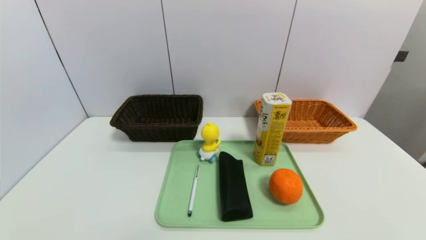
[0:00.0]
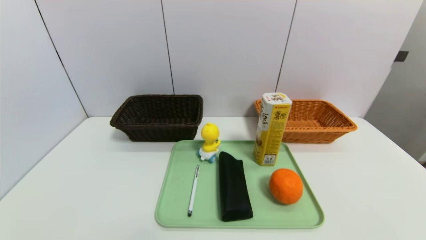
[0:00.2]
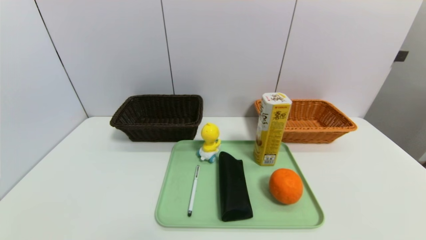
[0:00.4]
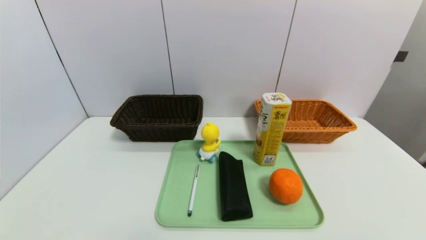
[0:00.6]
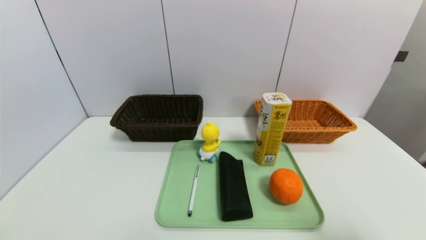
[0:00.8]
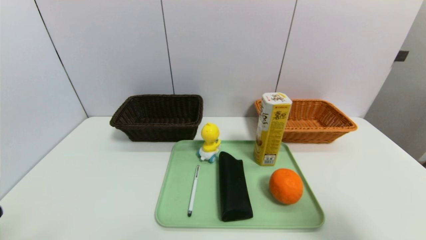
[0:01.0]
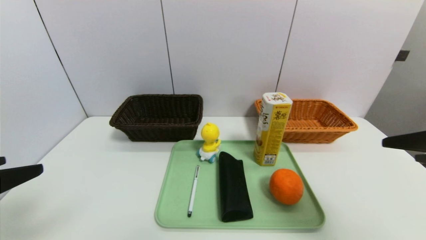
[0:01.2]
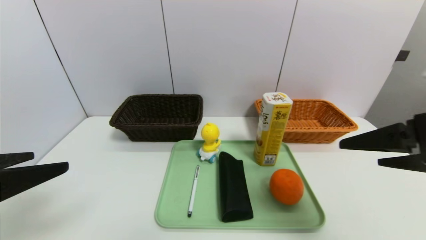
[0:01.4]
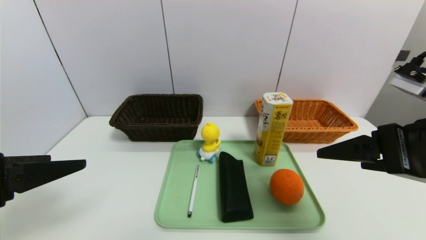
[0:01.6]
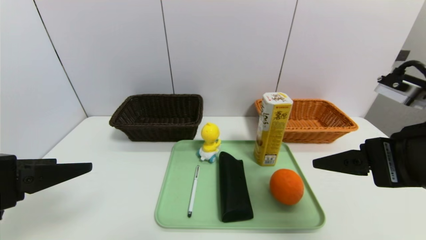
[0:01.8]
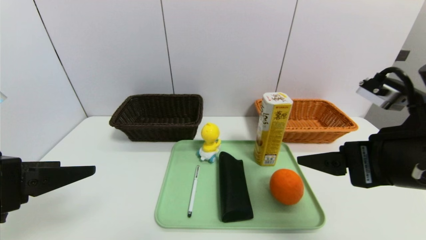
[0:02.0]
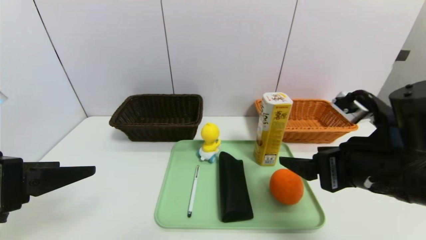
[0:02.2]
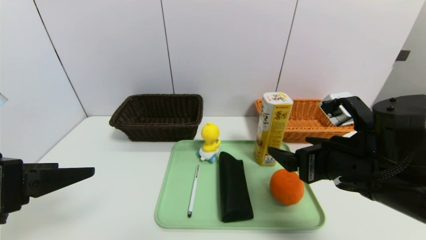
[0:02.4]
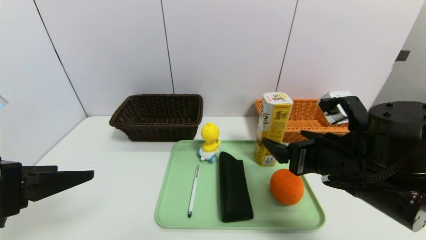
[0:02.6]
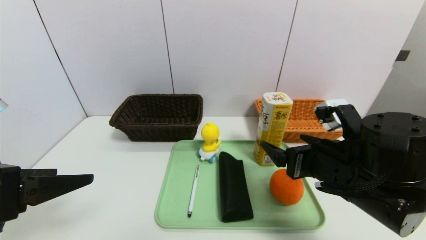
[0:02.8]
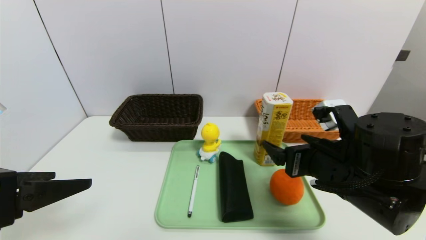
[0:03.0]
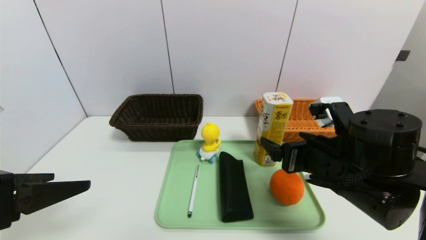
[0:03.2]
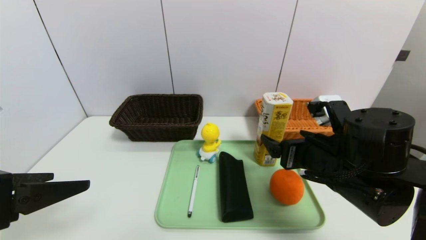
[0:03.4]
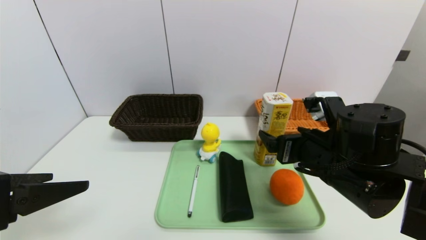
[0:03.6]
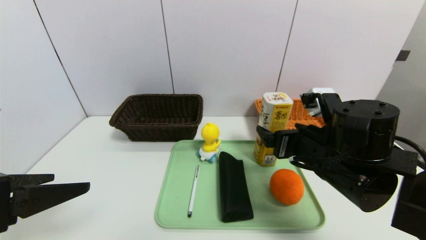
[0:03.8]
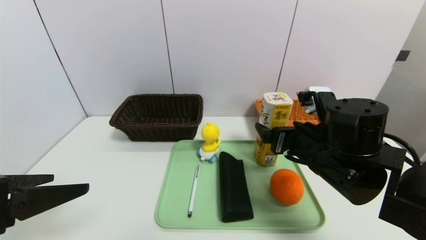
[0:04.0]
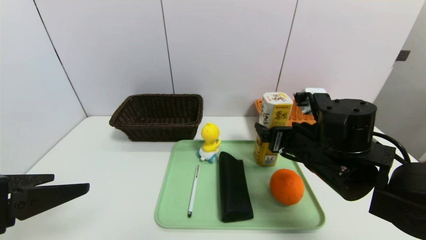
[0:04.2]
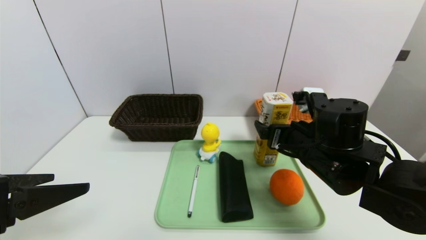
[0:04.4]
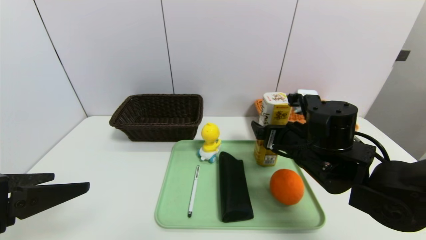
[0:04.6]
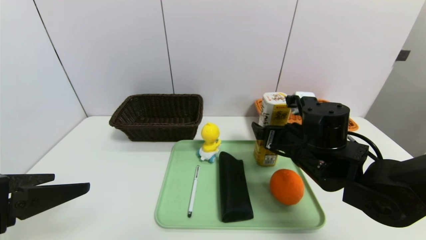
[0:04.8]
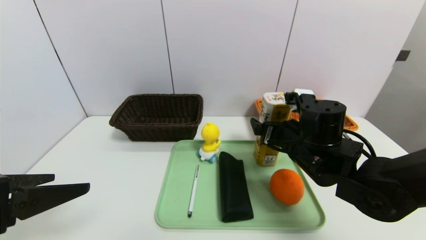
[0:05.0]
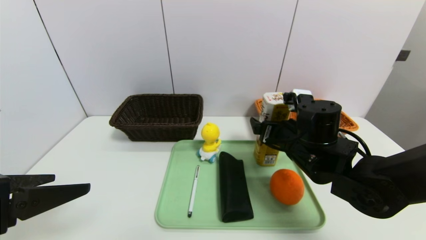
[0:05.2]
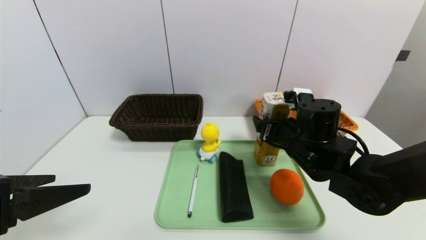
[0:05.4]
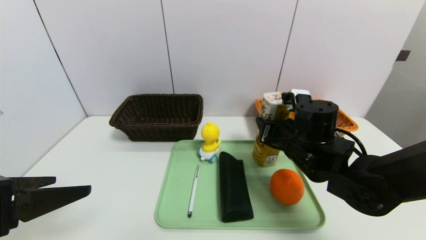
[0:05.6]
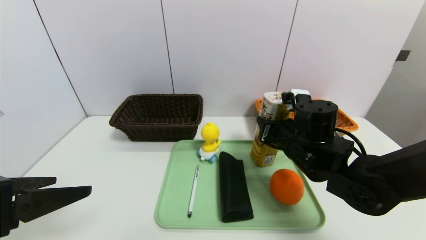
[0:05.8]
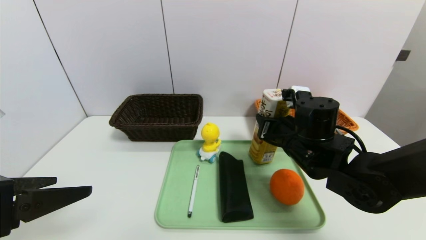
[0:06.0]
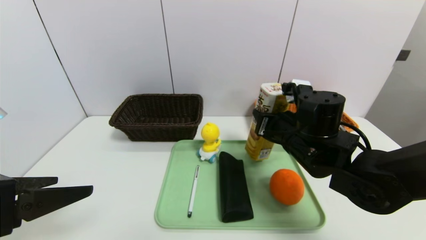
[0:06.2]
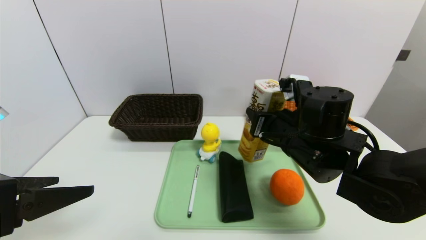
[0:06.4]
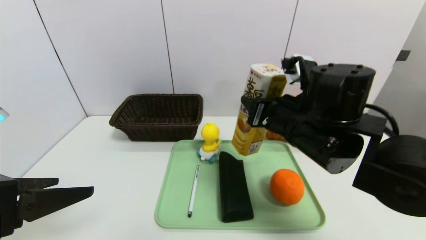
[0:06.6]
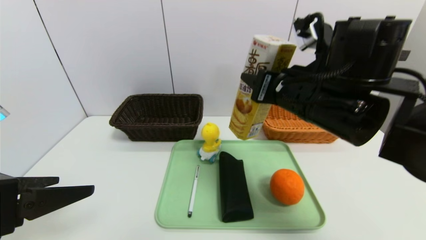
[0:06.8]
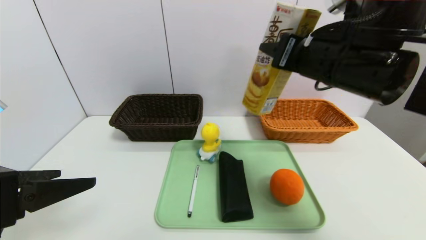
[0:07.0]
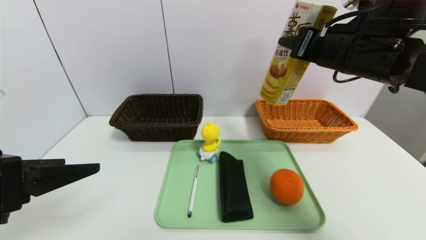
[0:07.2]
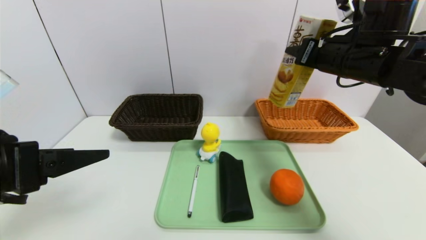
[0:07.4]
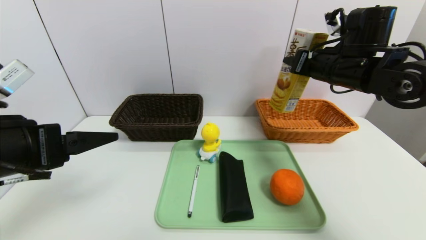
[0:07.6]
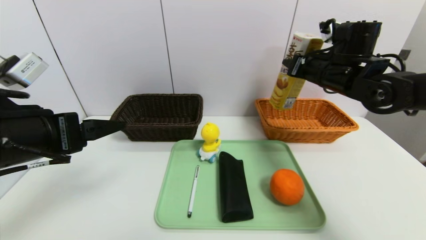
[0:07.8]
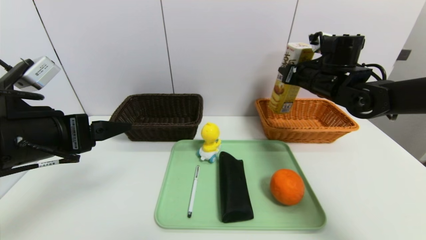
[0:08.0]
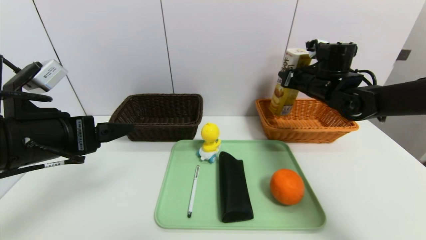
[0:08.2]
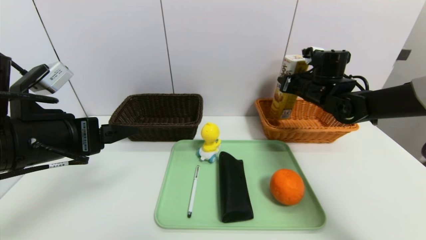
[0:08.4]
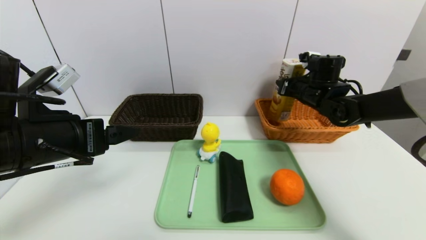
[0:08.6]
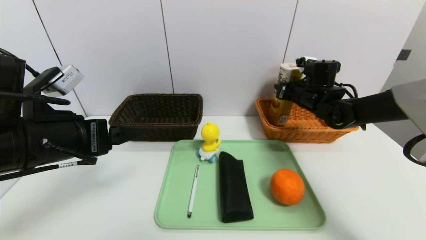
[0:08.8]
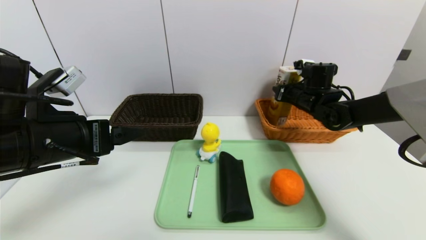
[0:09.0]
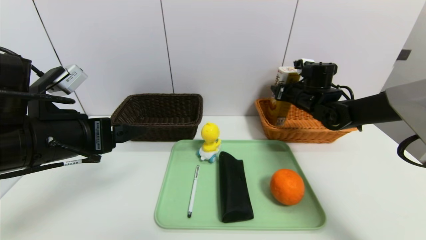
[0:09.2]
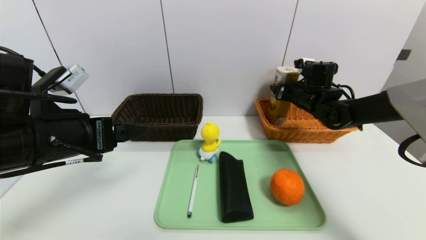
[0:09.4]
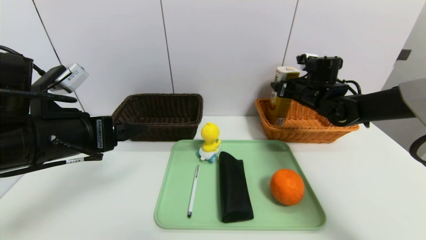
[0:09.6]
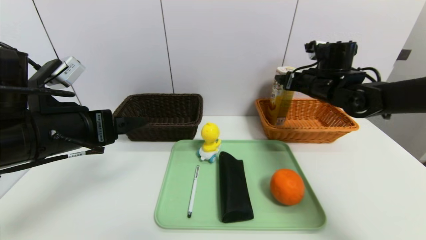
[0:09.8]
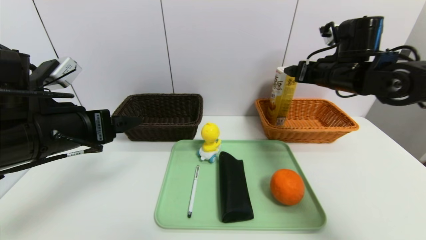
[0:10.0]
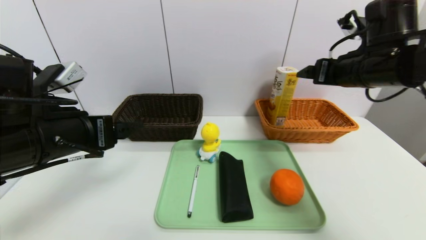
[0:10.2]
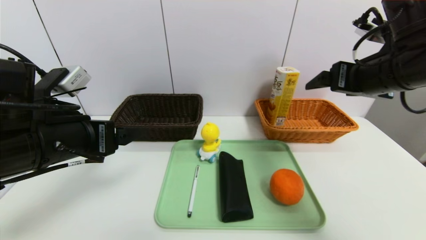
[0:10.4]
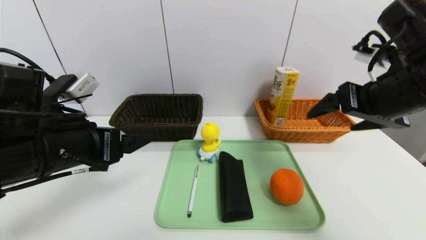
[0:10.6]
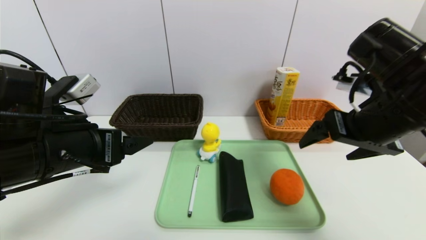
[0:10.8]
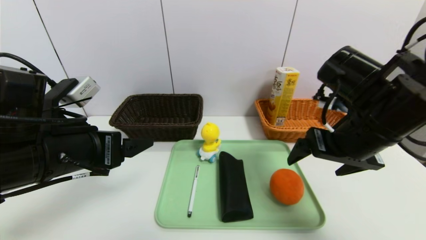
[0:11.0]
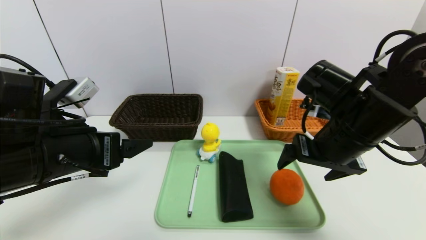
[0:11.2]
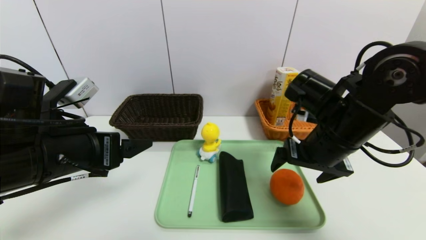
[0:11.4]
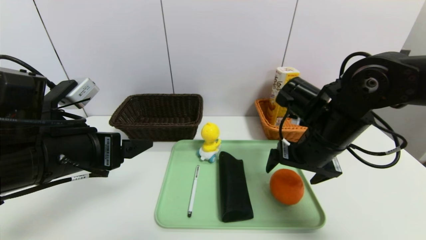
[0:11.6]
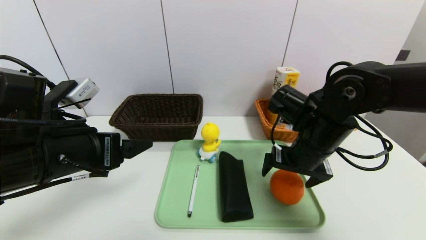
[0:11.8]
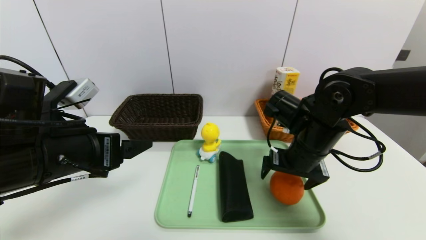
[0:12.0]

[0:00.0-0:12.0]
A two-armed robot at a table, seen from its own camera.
Task of the whole recording: place the food in the right basket with the right gripper, and place the non food items in the left basket with the left gripper.
Step, 0:00.0 to 0:10.0: Grasp the potato chips and put it in the right basket.
0:00.0 to 0:01.6: The left gripper moves upward and forward, some 25 cm, while the right gripper is displaced upward, forward and to the left by roughly 30 cm.
0:01.6 to 0:03.0: The right gripper heads downward, to the left and forward, covering about 15 cm.
0:03.0 to 0:04.4: The right gripper heads forward, covering roughly 5 cm.
0:04.4 to 0:06.0: The right gripper closes its fingers.
0:06.0 to 0:07.6: The right gripper is displaced upward, to the right and forward by about 15 cm. The left gripper shifts about 5 cm forward.
0:07.6 to 0:09.0: The right gripper moves downward and forward, some 15 cm.
0:09.0 to 0:10.4: The right gripper heads backward and upward, covering roughly 25 cm, and opens up.
0:10.4 to 0:12.0: The right gripper is displaced downward and to the left by roughly 15 cm.

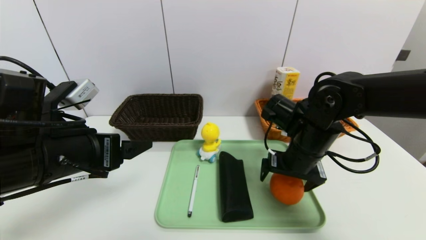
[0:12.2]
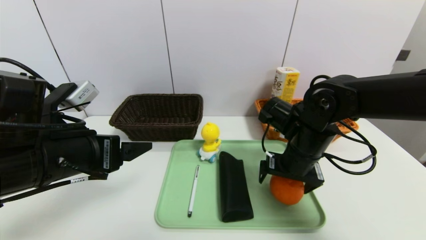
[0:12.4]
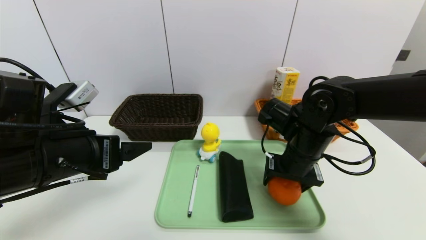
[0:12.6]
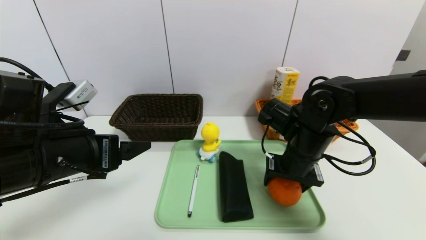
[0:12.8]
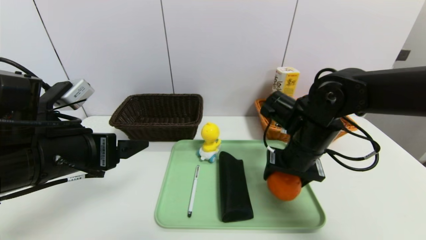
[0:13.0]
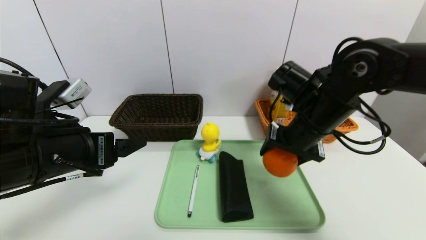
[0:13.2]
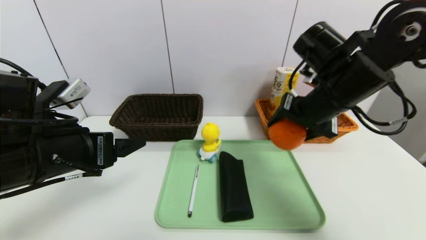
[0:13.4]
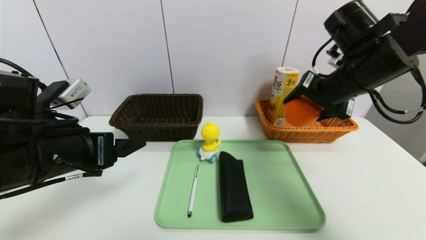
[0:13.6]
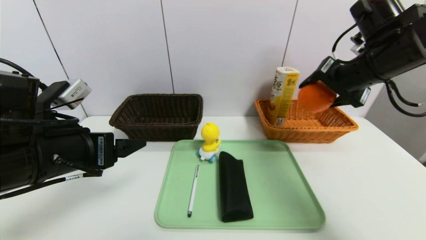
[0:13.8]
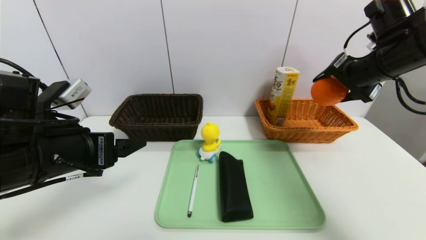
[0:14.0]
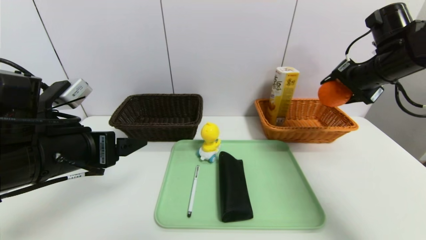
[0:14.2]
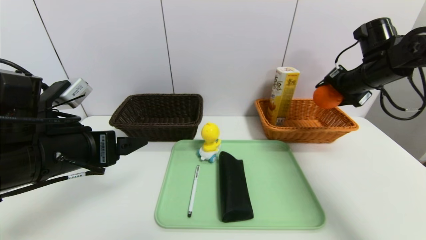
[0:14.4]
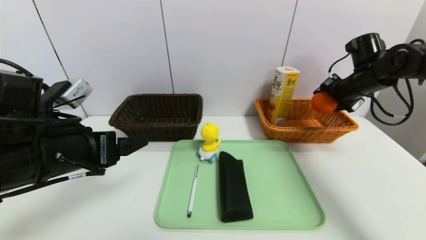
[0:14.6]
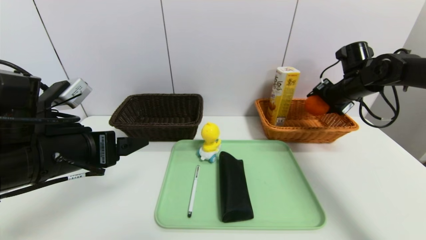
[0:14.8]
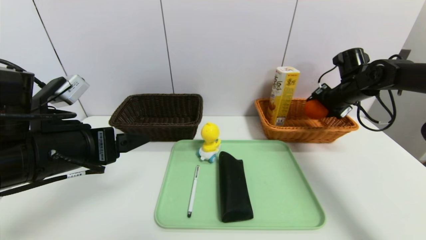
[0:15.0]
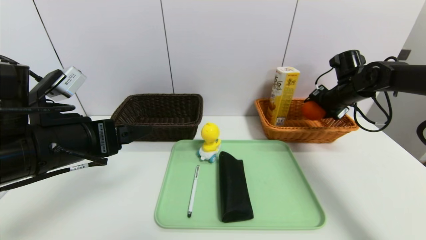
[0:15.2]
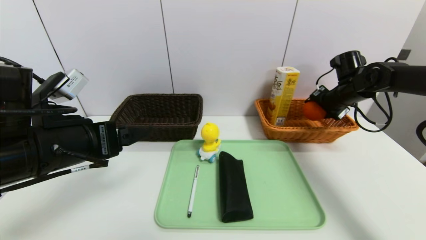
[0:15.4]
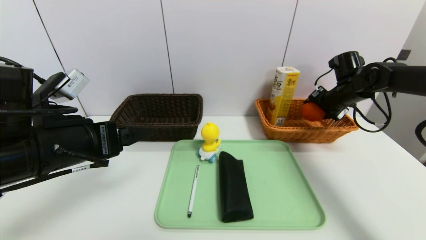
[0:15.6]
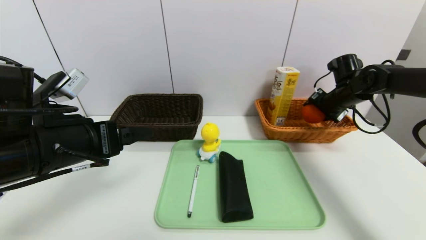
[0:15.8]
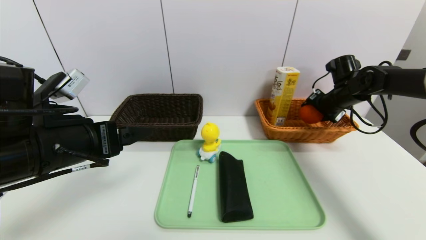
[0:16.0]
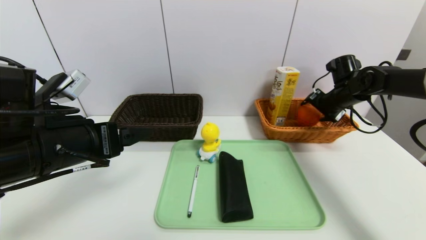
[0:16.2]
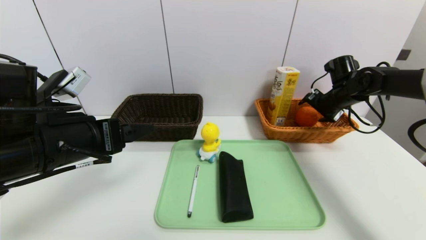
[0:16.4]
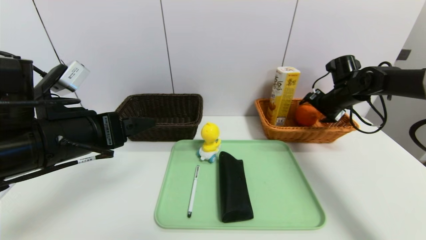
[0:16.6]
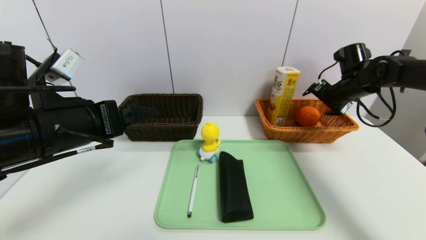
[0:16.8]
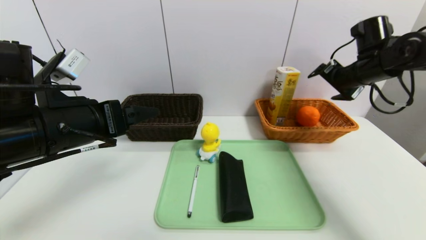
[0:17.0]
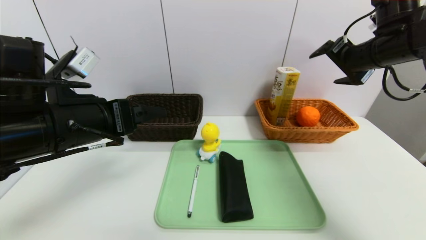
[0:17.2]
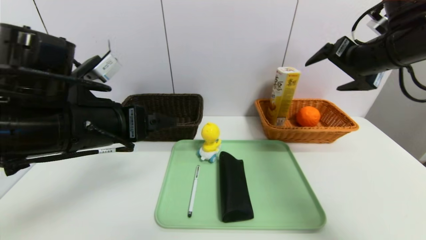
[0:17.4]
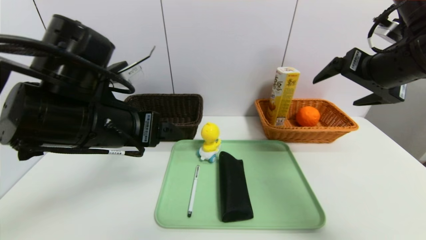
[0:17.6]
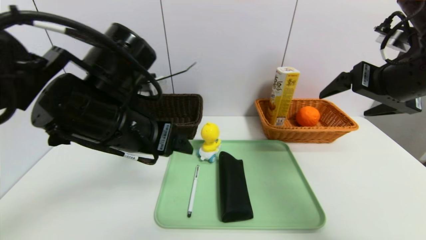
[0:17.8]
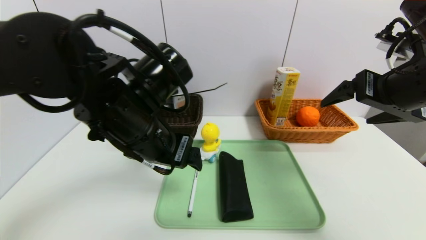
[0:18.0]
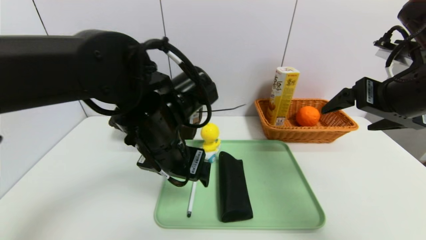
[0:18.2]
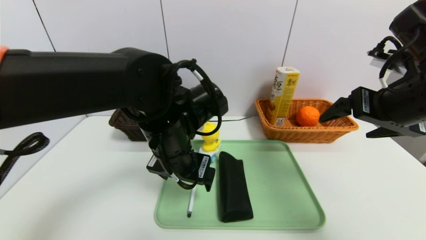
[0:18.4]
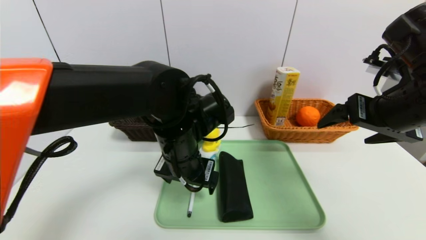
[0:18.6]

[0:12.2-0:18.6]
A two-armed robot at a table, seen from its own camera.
Task of the whole recording: place the food in the right basket with the right gripper, and place the non food items in the left basket with the left gripper.
Step, 0:12.2 to 0:16.8: Grasp the orange and put it in the right basket.
0:12.2 to 0:13.8: The right gripper moves upward and to the right, about 15 cm, and closes up.
0:13.8 to 0:15.4: The right gripper shifts approximately 20 cm forward, downward and to the right.
0:15.4 to 0:17.0: The right gripper heads upward and backward, covering some 10 cm, and opens.
0:17.0 to 0:18.6: The left gripper shifts roughly 15 cm to the right and downward. Meanwhile the right gripper is displaced backward by approximately 15 cm.
